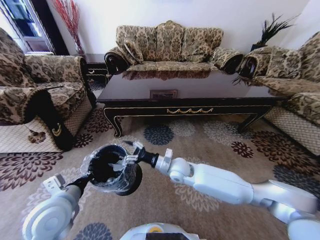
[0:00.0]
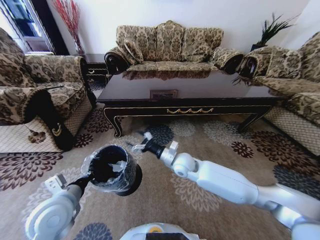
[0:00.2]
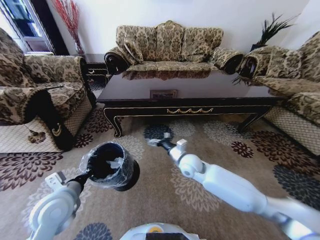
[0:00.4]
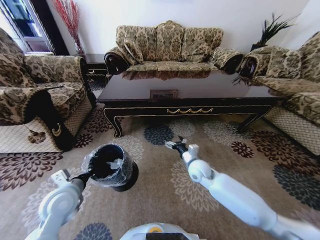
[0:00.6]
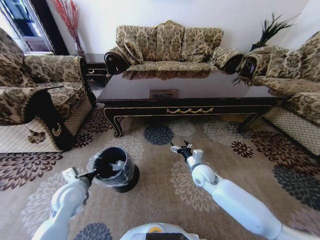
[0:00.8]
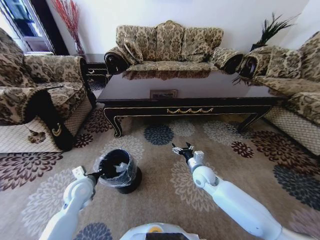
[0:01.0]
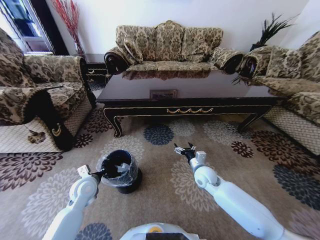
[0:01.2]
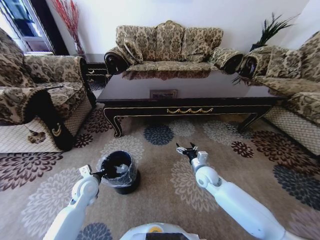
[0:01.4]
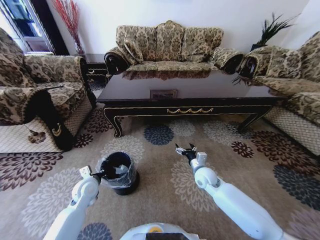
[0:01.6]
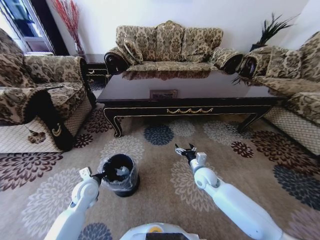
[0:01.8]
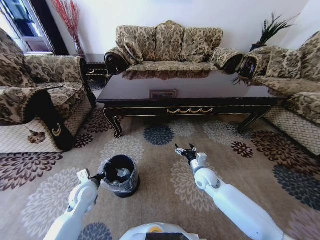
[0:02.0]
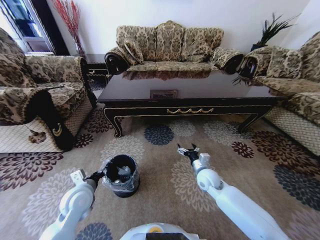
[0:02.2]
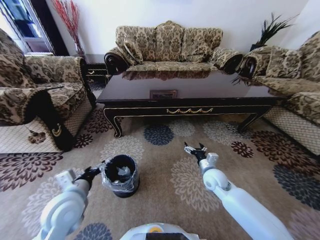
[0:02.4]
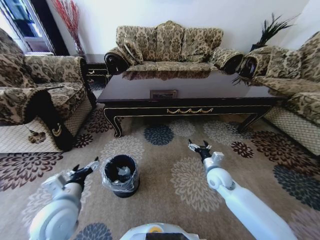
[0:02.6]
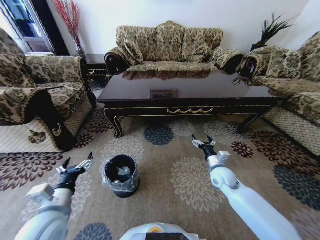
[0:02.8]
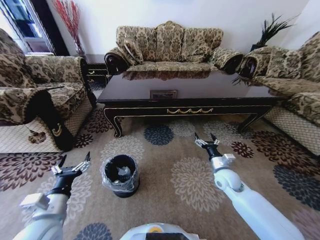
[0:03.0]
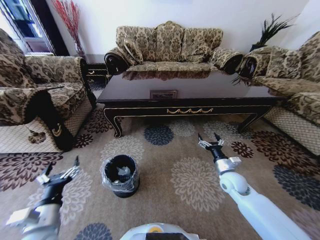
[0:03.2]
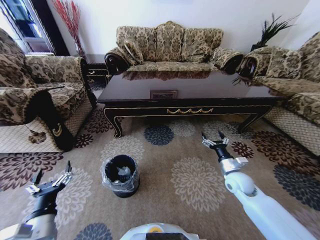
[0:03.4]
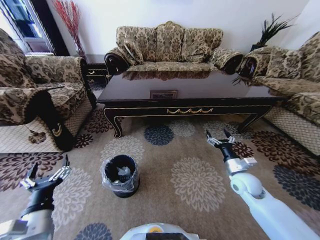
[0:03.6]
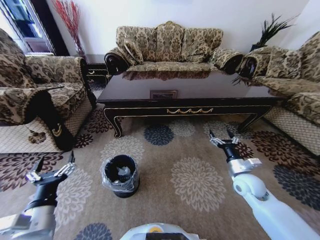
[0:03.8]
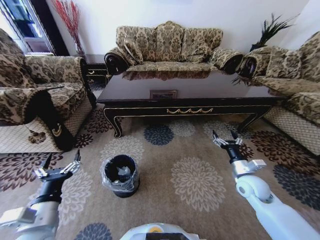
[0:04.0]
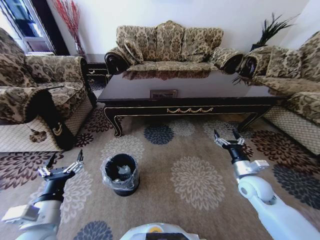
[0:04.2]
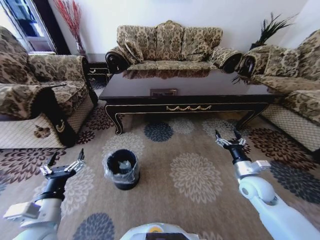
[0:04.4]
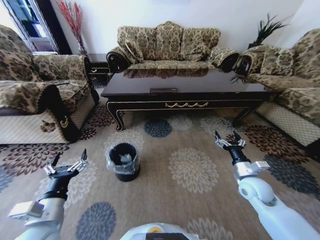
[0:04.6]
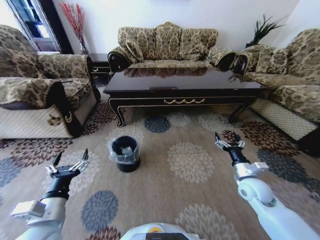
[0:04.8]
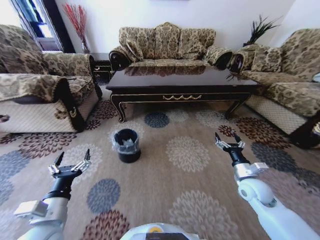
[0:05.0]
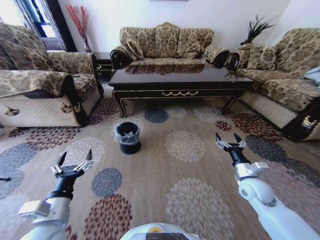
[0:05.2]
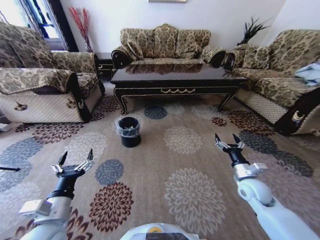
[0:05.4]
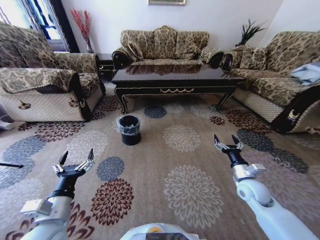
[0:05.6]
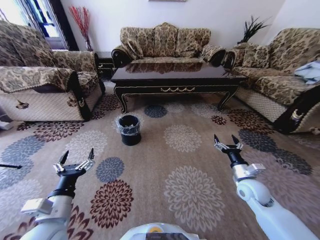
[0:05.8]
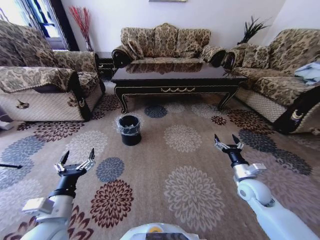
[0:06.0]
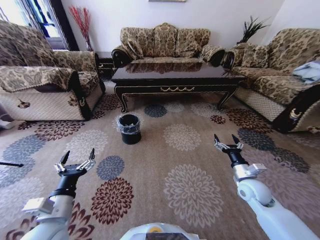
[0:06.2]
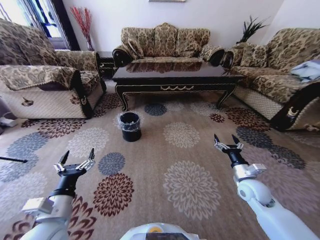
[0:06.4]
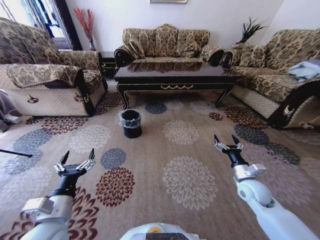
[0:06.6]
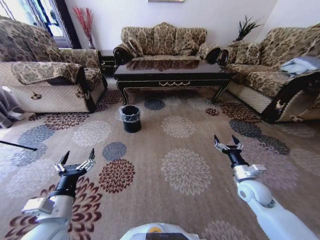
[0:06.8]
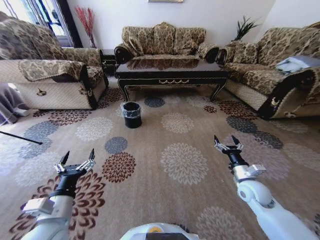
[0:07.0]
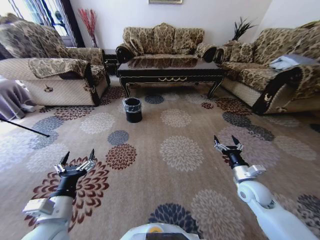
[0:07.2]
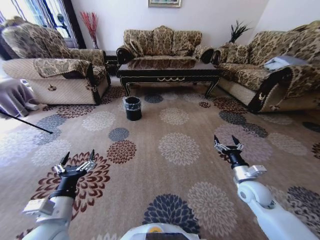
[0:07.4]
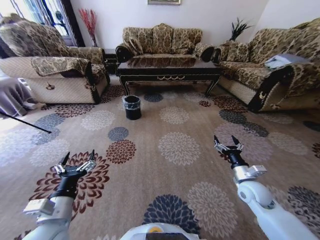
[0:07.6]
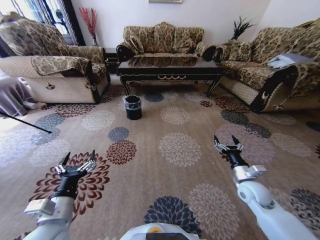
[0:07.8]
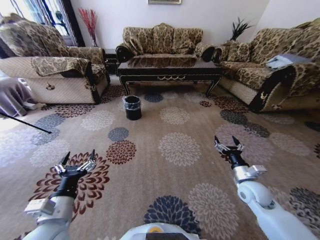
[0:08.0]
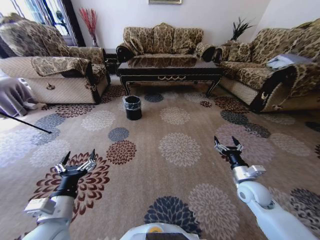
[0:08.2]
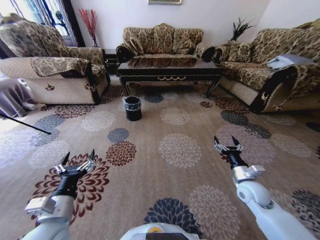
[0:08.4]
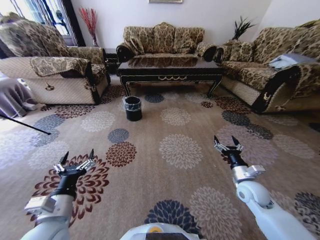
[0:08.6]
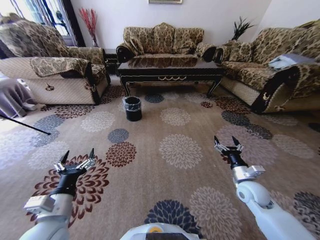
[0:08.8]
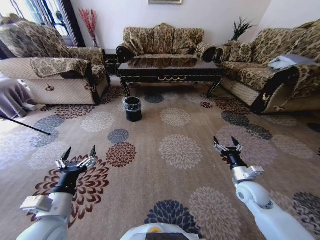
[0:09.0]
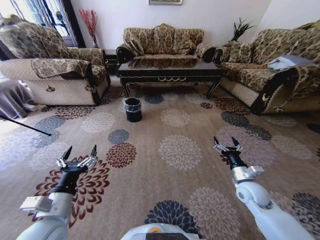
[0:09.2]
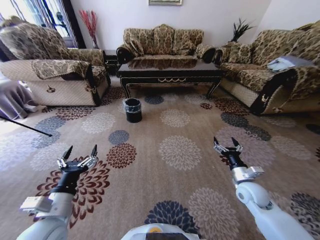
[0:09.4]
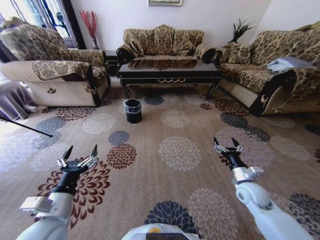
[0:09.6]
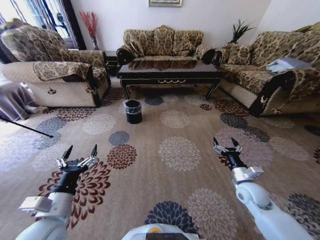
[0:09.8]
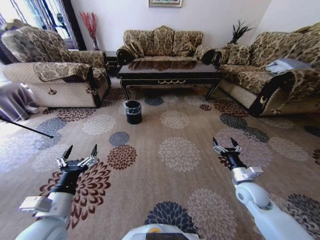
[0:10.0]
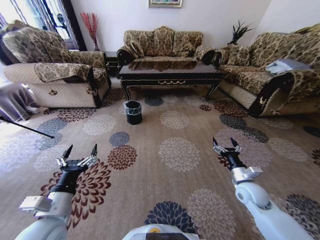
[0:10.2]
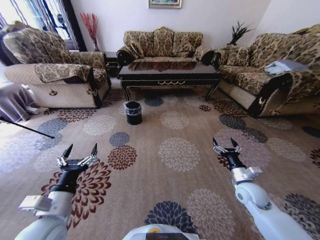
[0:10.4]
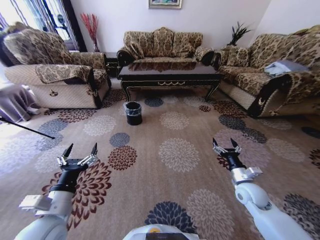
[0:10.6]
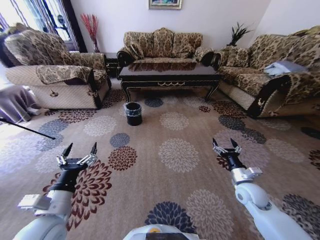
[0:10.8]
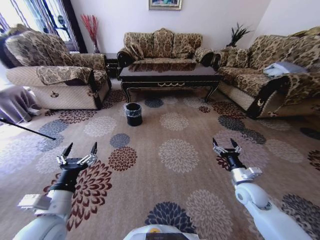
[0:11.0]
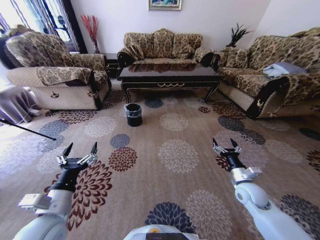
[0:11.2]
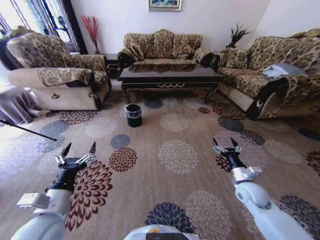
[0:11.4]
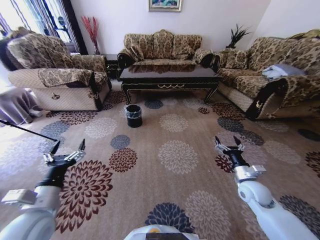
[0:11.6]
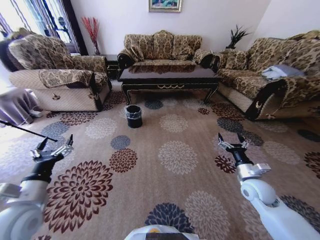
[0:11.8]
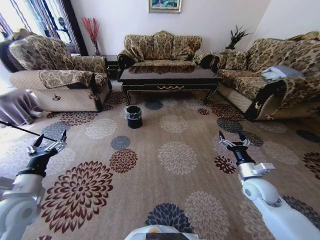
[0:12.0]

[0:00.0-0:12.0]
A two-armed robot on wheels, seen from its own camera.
Task of the whole recording: Move to the front of the table and pick up the trash from the floor, then place it into the trash bin.
0:00.0 to 0:01.6: The left gripper heads downward and forward, covering about 15 cm, while the right gripper travels to the right and downward by some 15 cm.
0:01.6 to 0:03.0: The right gripper travels to the right by approximately 10 cm. Meanwhile the left gripper shifts some 20 cm backward and upward, and opens its fingers.
0:03.0 to 0:04.4: The right gripper heads to the right, covering about 5 cm.
0:07.6 to 0:09.0: Both grippers stay about where they are.
0:10.4 to 0:12.0: The left gripper is displaced to the left by some 10 cm.

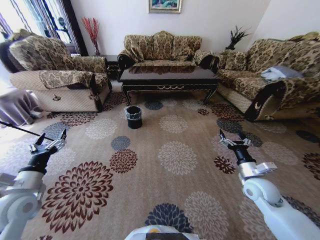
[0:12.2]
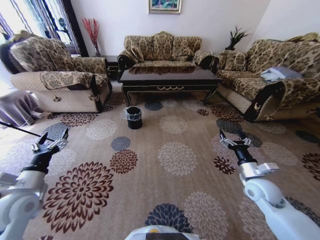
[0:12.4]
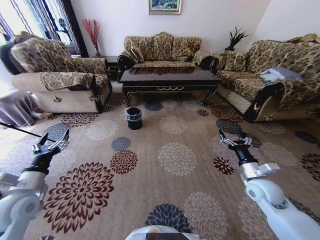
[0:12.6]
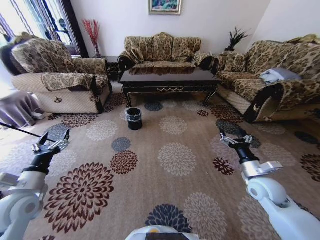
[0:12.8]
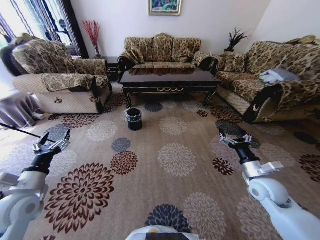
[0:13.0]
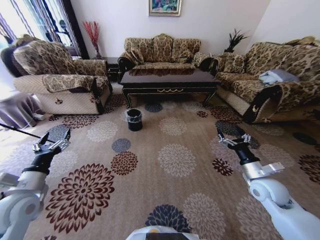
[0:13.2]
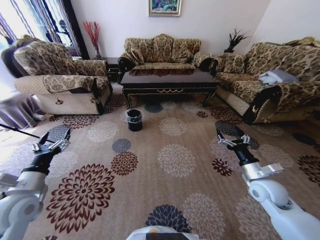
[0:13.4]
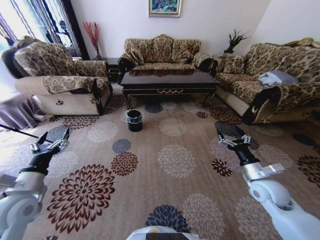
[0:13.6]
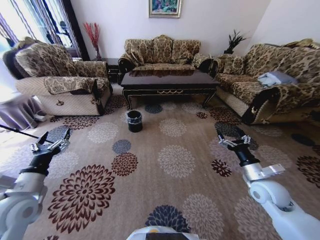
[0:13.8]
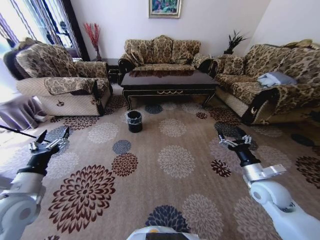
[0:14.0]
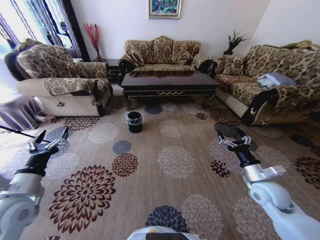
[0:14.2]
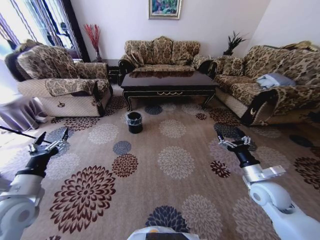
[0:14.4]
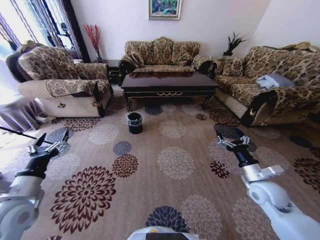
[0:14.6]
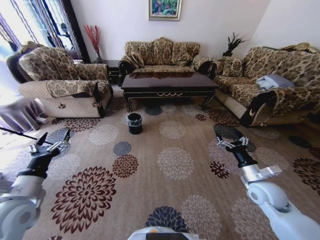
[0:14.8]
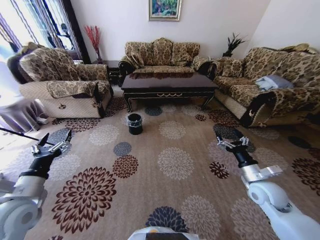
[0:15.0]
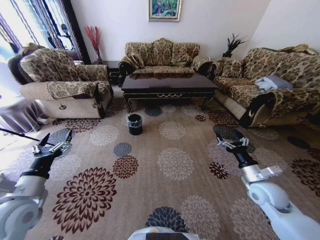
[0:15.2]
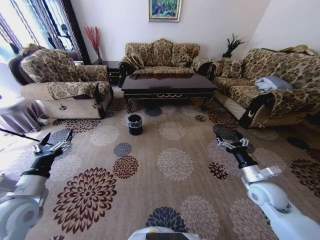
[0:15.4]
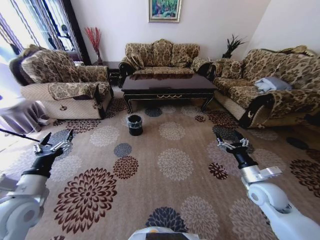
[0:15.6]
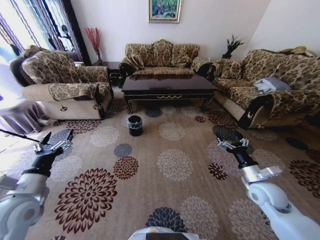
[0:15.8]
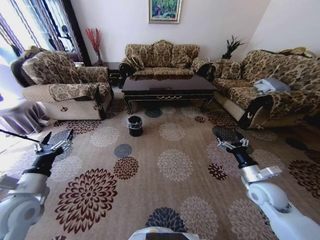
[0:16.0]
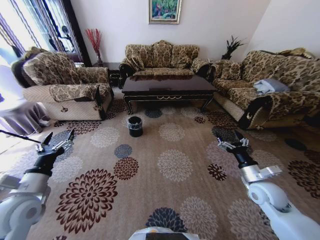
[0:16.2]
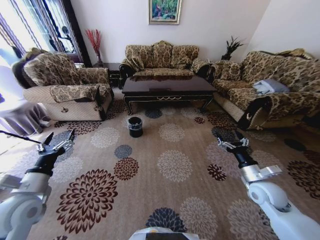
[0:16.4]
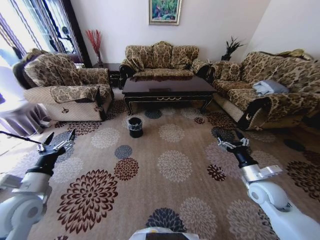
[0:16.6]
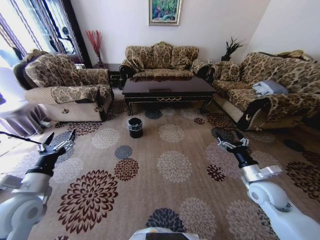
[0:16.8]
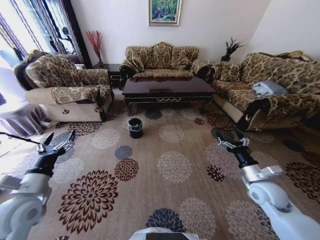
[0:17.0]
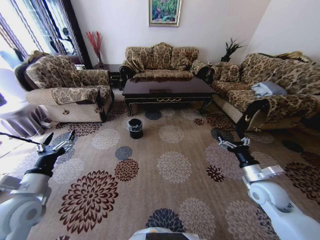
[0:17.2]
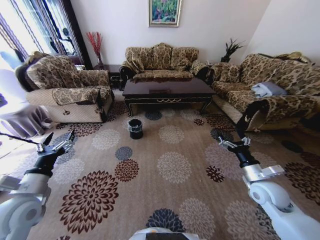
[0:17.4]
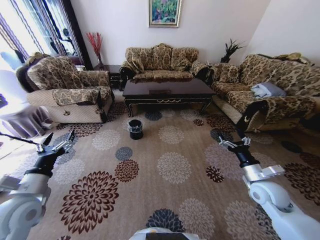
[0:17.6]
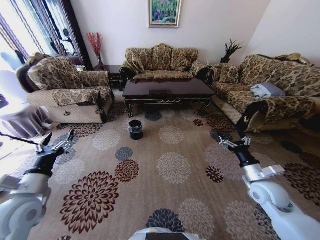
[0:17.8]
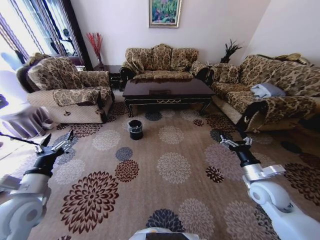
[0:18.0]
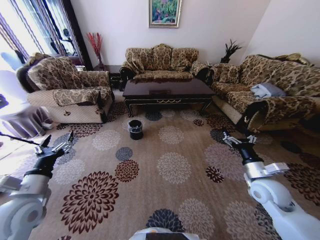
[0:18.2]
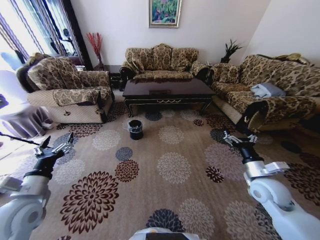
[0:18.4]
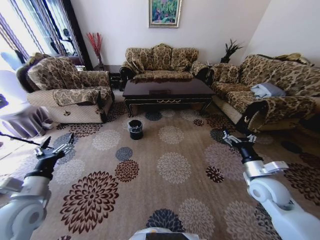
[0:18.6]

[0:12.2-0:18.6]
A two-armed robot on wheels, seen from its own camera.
Task of the whole recording: Move to the front of the table and pick up the trash from the floor, then place it into the trash bin.
0:17.0 to 0:18.6: The grippers make only small movements.

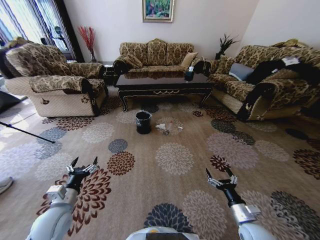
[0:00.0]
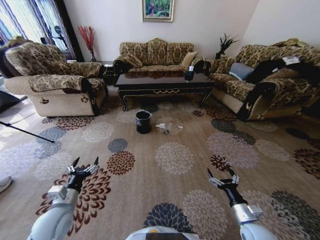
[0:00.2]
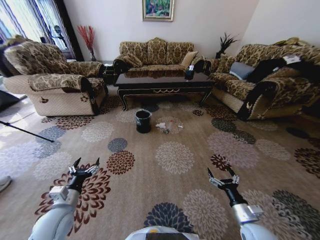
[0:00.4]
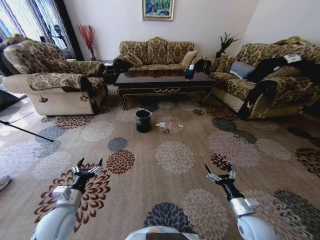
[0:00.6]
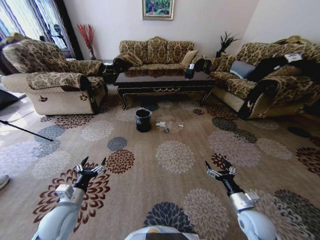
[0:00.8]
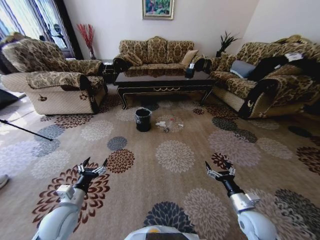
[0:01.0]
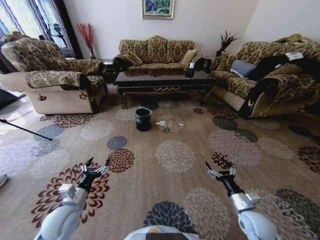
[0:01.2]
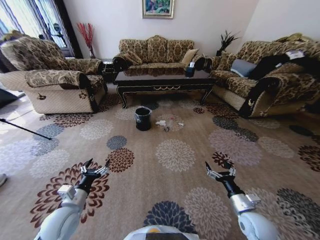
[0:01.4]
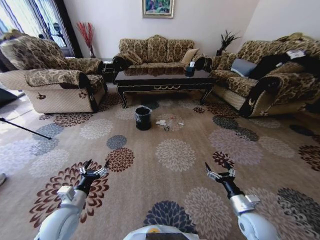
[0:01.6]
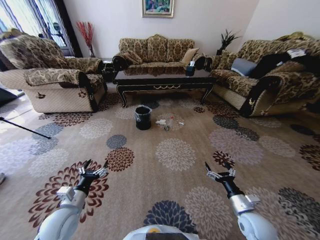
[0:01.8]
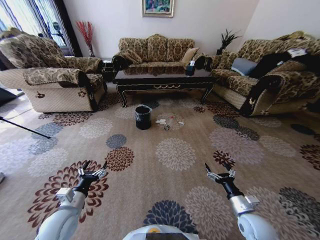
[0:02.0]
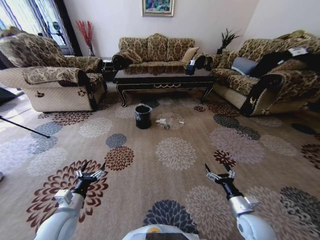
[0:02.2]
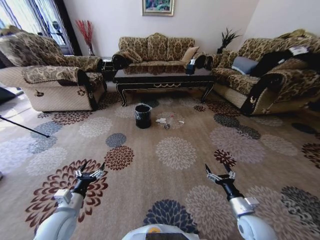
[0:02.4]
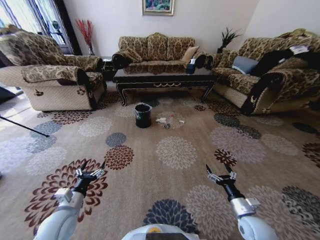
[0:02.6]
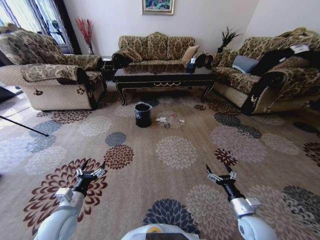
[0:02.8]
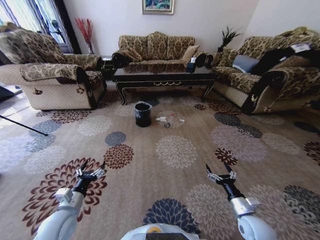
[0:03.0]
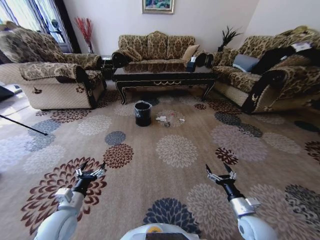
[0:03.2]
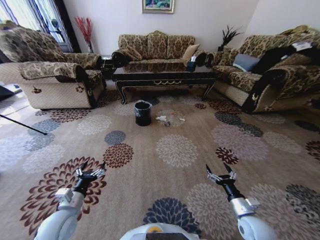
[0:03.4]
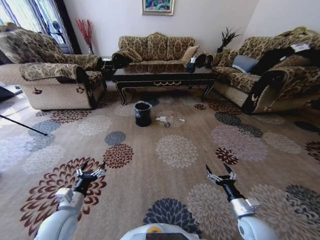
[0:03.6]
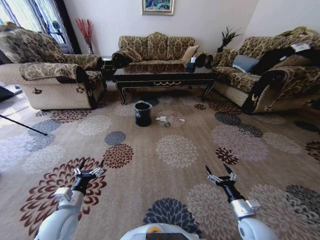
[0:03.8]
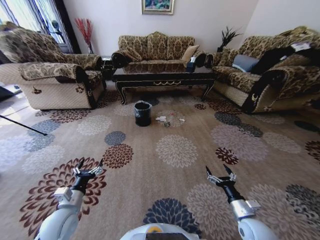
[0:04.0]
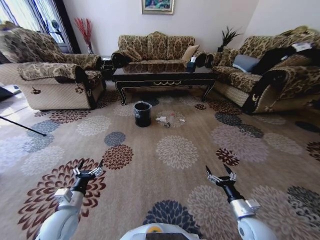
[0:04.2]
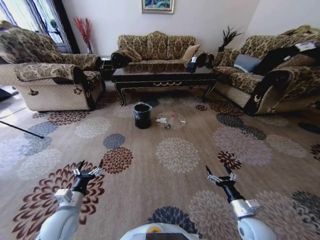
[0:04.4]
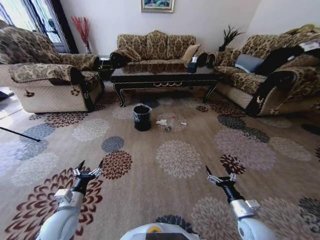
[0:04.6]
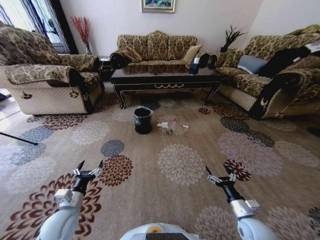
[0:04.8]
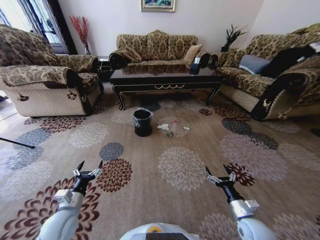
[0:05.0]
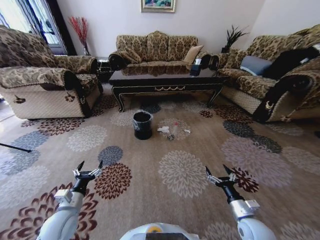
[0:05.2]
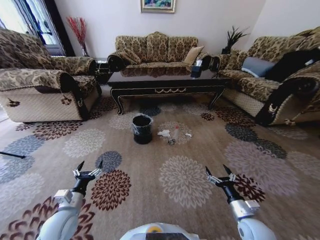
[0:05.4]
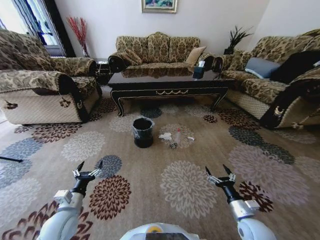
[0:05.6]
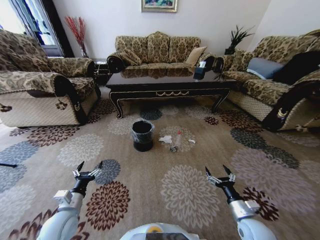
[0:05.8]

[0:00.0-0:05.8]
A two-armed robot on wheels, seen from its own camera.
Task of the whole recording: Move to the front of the table and pick up the trash from the floor, then place it into the trash bin.
0:02.8 to 0:04.4: Both grippers stay put.
